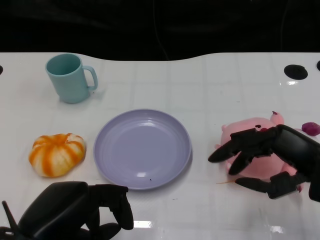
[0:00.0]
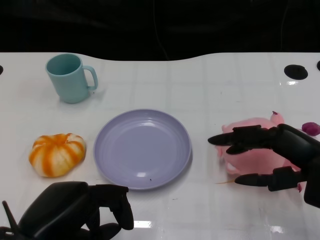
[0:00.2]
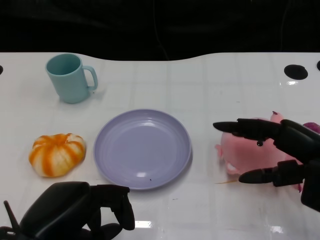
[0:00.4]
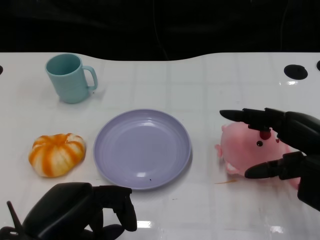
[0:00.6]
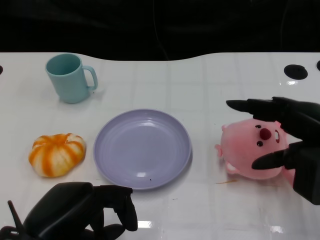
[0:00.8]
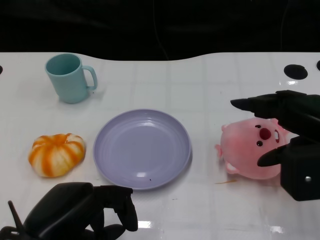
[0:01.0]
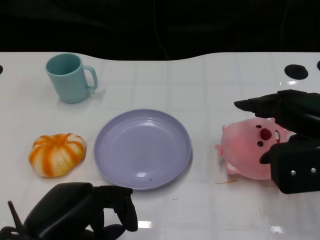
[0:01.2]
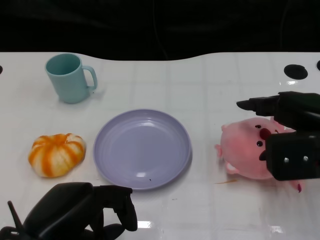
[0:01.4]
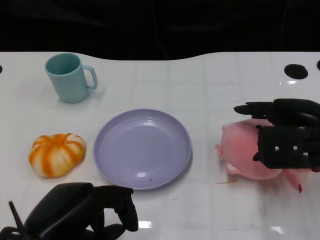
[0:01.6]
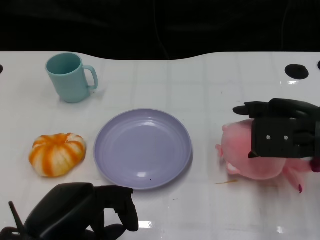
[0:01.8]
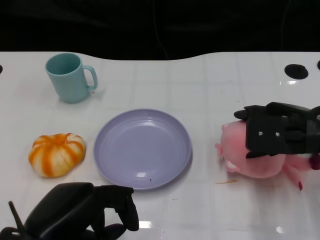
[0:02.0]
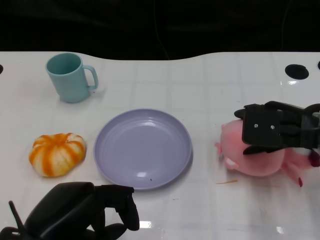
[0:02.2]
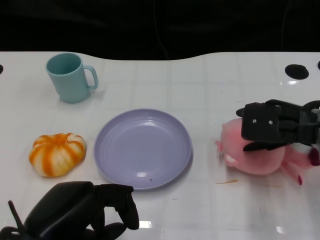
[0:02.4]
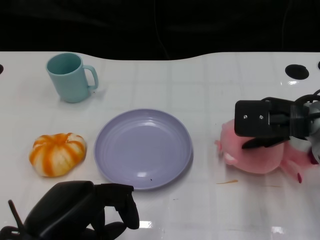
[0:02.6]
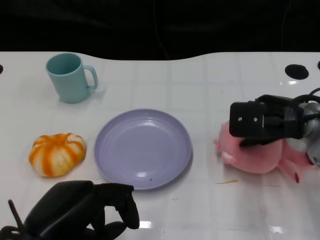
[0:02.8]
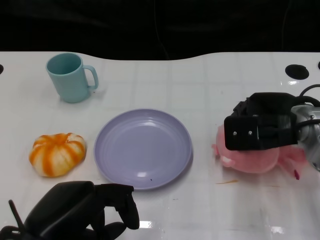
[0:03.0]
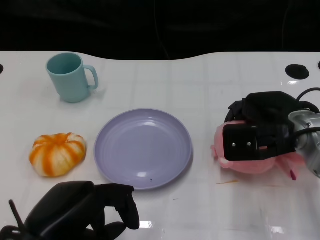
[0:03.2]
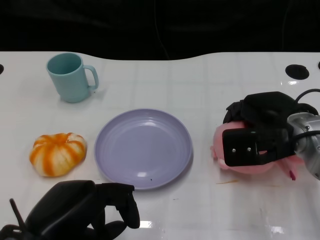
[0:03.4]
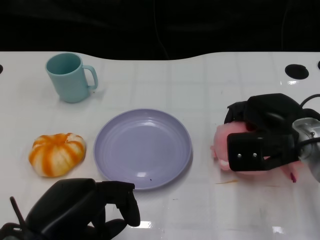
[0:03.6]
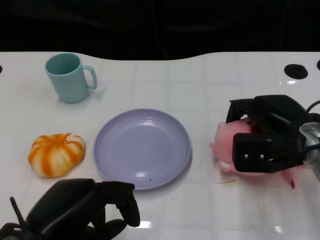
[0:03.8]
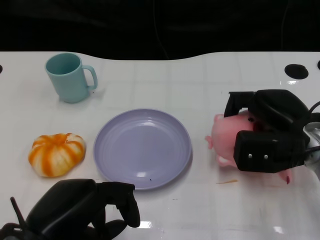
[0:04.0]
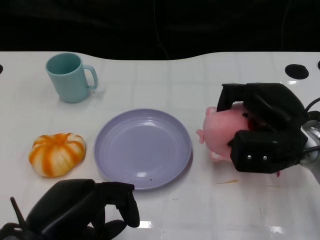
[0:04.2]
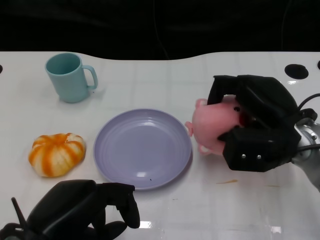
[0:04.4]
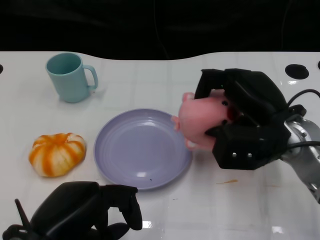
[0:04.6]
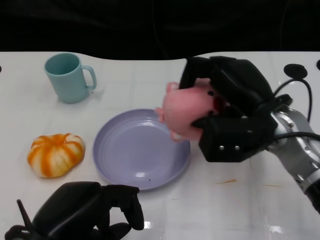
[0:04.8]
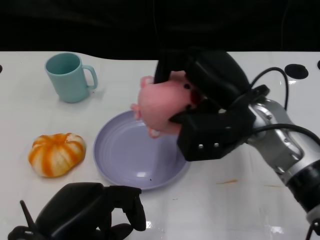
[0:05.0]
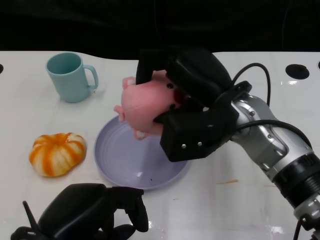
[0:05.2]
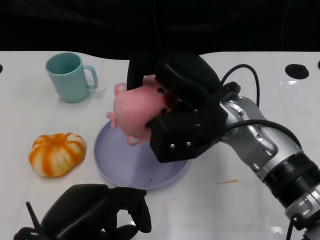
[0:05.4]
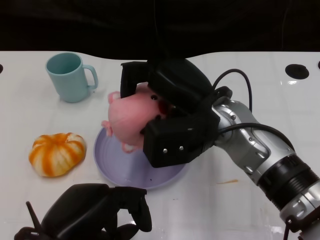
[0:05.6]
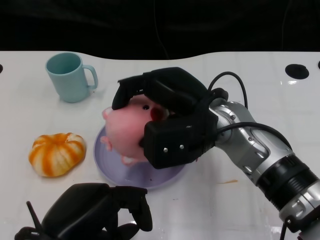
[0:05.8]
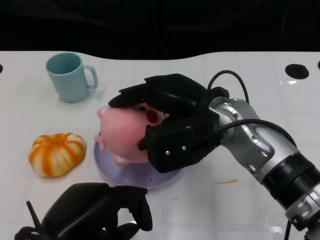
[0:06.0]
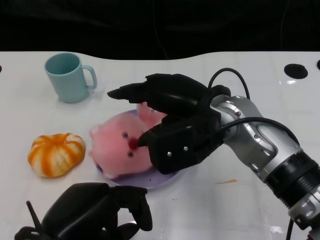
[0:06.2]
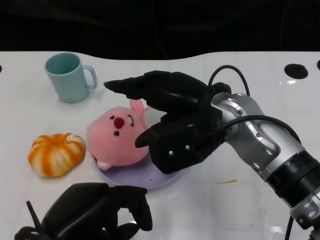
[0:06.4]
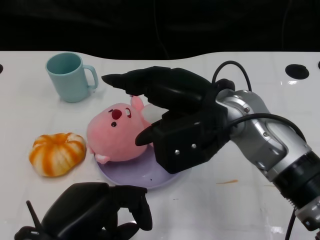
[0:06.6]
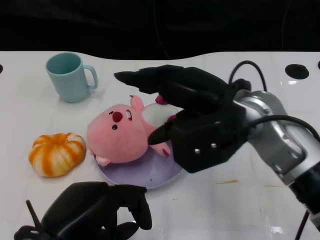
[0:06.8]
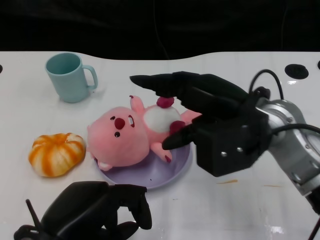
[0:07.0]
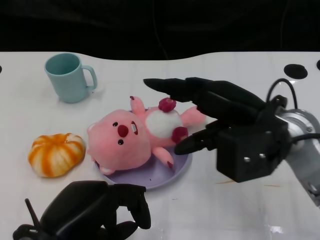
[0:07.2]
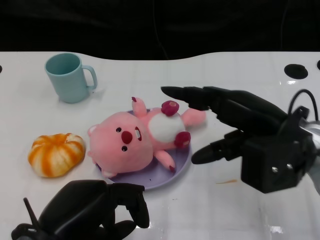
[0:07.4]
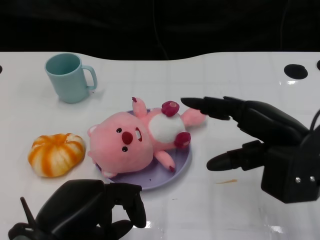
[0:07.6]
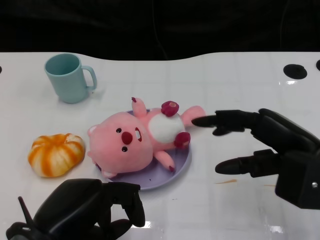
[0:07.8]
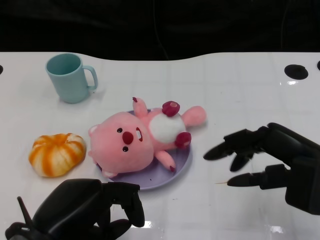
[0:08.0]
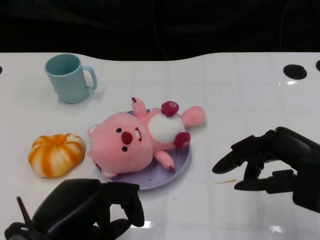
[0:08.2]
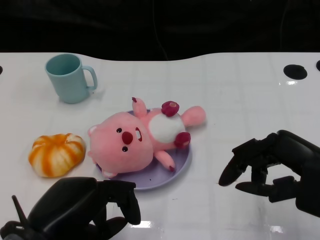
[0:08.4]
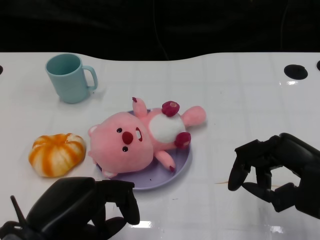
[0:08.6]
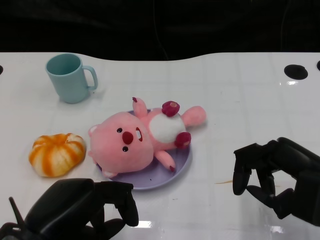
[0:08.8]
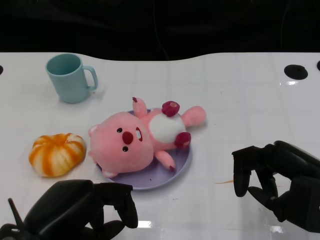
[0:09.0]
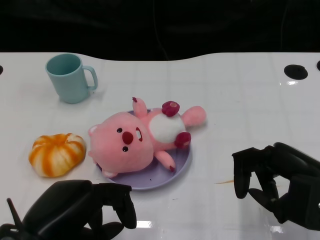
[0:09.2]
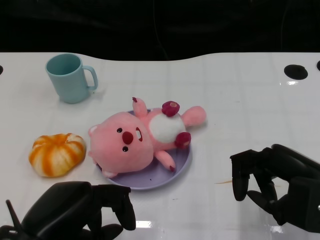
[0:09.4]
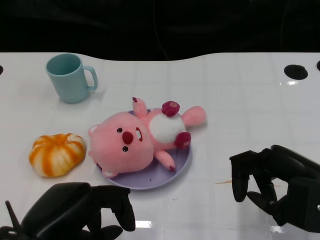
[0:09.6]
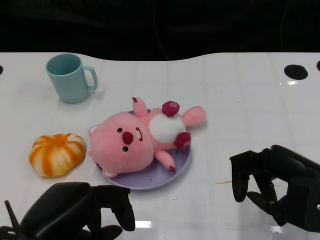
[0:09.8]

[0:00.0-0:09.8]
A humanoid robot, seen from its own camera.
Task of the whole recording: Pick up the doll on the other side of the plate and place it into the plate.
Step, 0:00.0 to 0:04.6: Grasp the pink doll with the right gripper.
Step, 0:04.8 to 0:07.0: Place the pink doll into the plate with the right gripper.
0:00.0 to 0:01.4: The right hand ends up about 5 cm from where it was.
0:01.4 to 0:02.8: The right hand is displaced forward by some 5 cm.
0:04.2 to 0:05.6: The right hand heads to the left, covering about 15 cm.
0:05.6 to 0:07.0: The right hand heads to the right, covering about 5 cm.
0:07.0 to 0:08.4: The right hand moves to the right and backward, about 15 cm.
0:08.4 to 0:09.8: The hands move only a little.

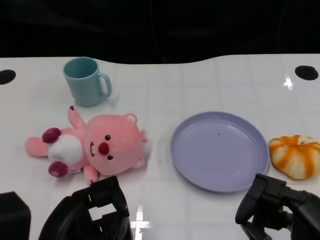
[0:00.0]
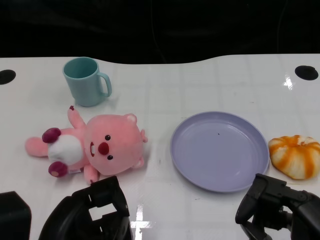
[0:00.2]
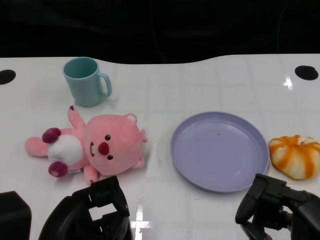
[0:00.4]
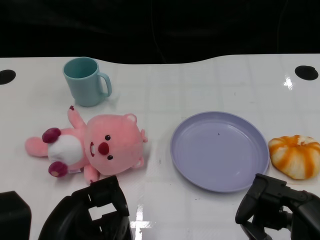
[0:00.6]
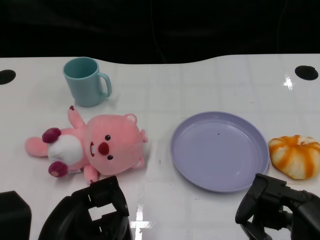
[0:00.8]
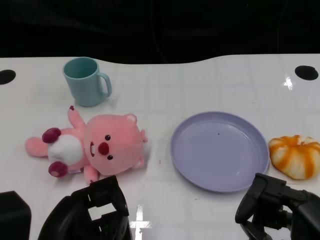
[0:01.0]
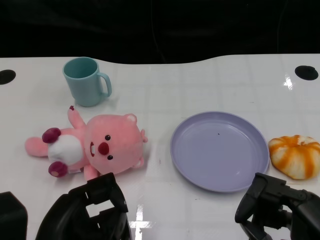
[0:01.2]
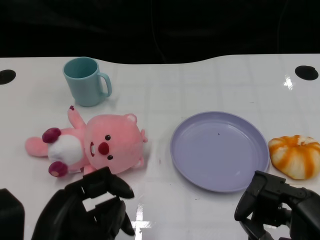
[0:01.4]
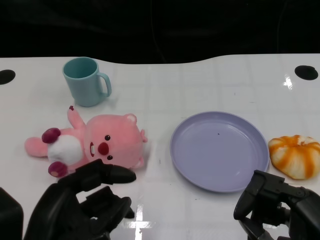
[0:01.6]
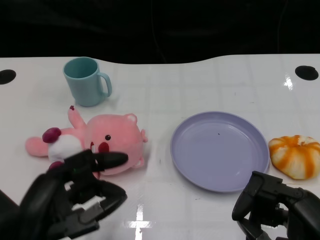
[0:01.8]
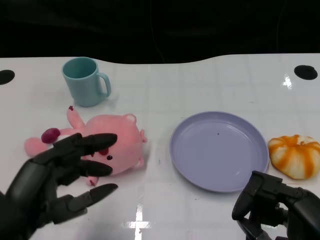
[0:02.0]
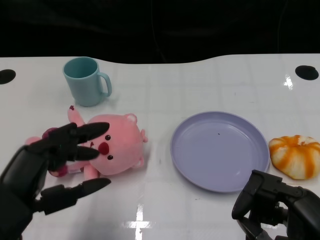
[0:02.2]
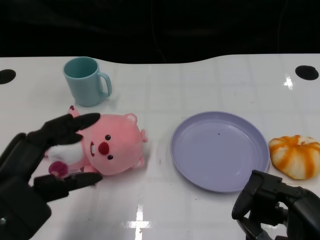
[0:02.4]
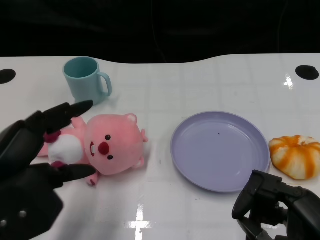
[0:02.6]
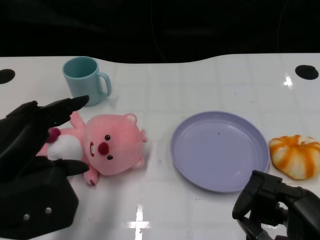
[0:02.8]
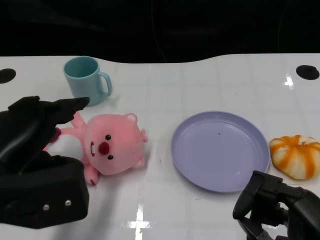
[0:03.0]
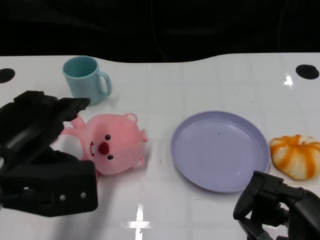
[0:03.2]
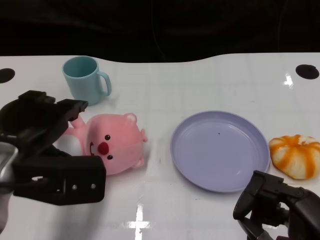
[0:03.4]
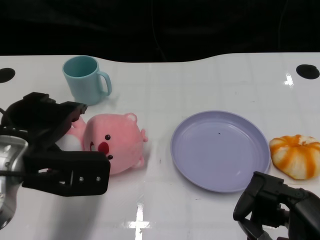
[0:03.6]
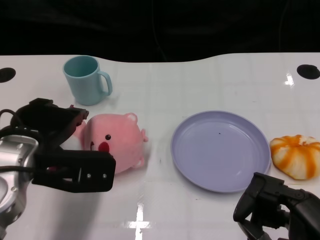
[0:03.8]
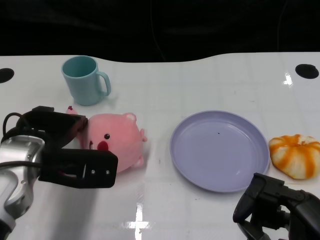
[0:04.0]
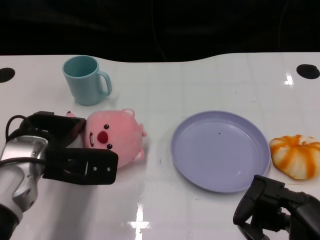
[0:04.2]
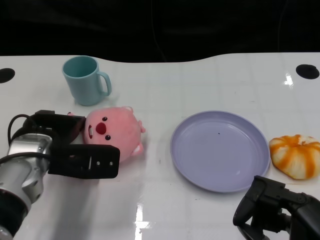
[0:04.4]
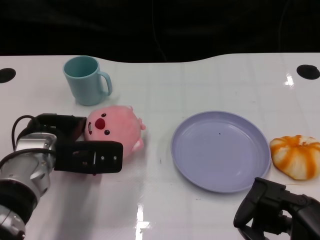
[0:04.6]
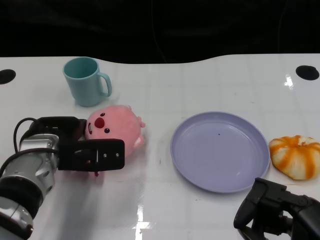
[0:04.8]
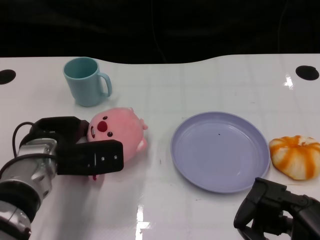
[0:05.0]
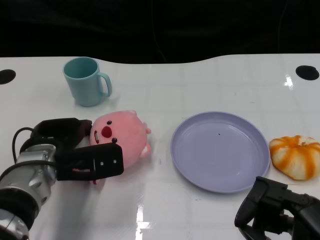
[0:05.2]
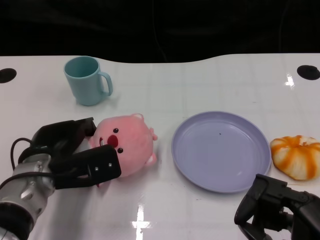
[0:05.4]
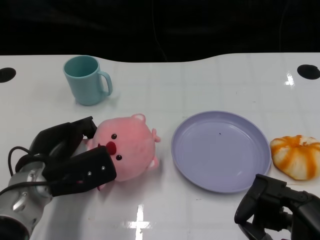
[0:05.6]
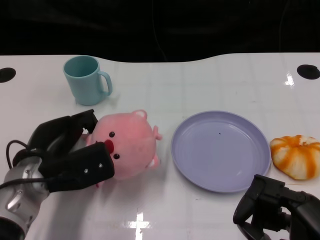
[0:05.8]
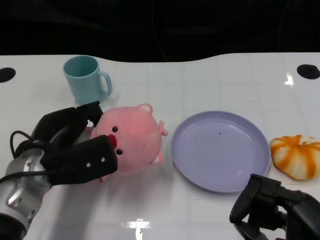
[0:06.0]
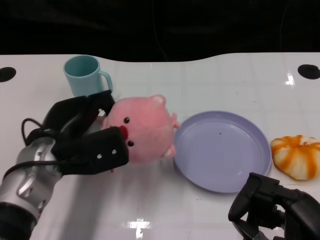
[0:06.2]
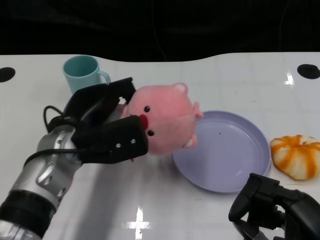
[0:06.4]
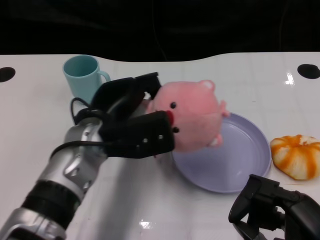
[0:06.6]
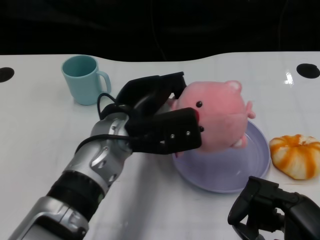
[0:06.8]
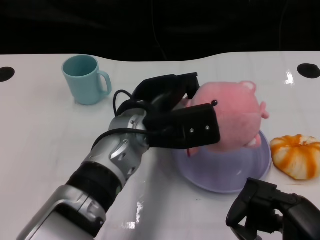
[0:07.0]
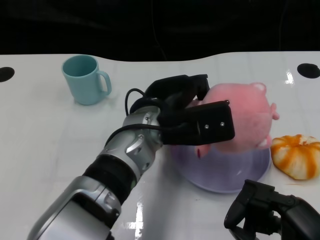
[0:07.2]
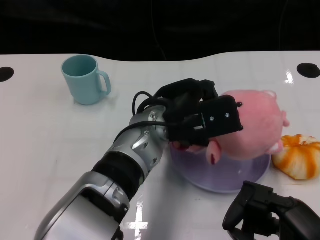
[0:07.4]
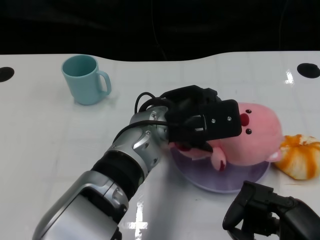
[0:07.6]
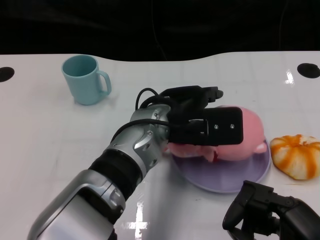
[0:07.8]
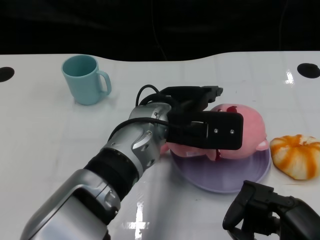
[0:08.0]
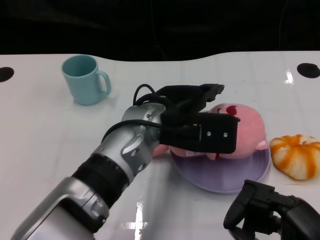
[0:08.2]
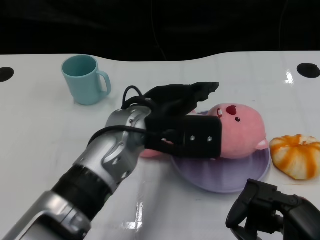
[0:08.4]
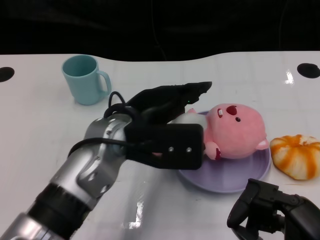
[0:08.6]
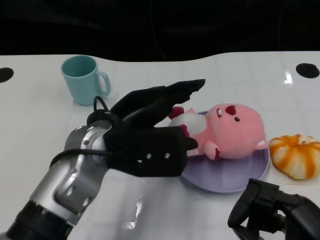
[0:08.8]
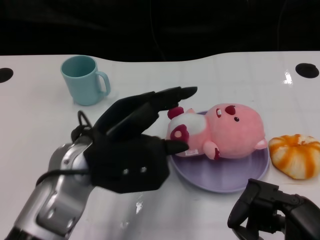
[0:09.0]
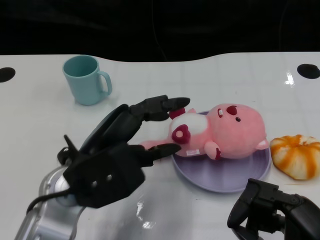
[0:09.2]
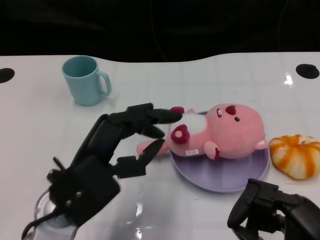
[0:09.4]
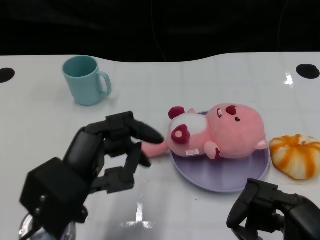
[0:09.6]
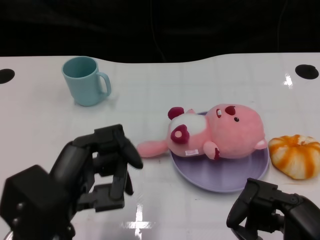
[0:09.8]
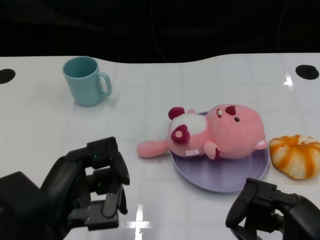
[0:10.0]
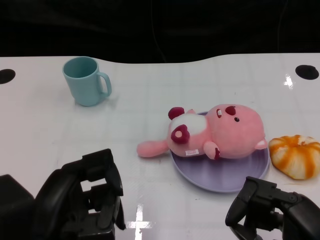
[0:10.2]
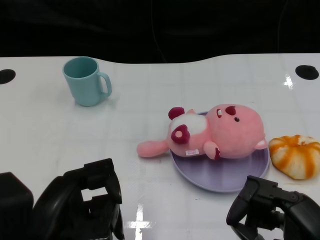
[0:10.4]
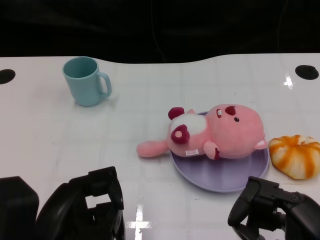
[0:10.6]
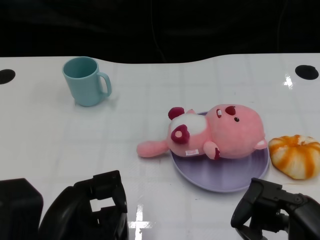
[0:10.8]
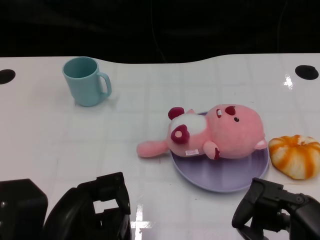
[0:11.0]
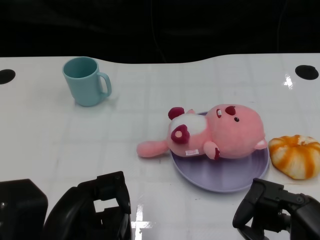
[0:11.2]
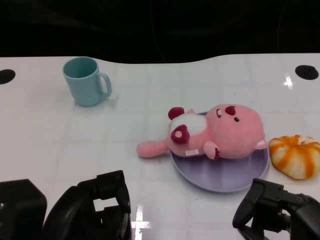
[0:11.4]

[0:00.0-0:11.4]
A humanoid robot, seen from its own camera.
Task of the whole recording: Pick up the doll on one side of the plate and place it into the plate.
Step, 0:01.2 to 0:05.6: Grasp the pink doll with the left gripper.
Step, 0:05.8 to 0:08.0: Place the pink doll into the plate with the left gripper.
0:01.4 to 0:02.8: The left hand is displaced upward by some 5 cm.
0:02.8 to 0:04.2: The left hand is displaced forward and downward by roughly 10 cm.
0:04.2 to 0:05.6: The left hand travels downward by roughly 5 cm.
0:05.6 to 0:07.2: The left hand travels to the right and upward by approximately 20 cm.
0:07.2 to 0:08.6: The left hand moves approximately 5 cm.
0:08.6 to 0:10.0: The left hand heads backward and to the left, covering some 15 cm.

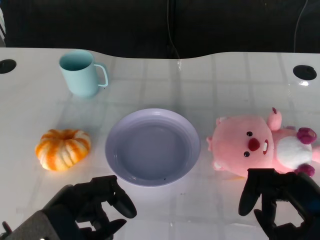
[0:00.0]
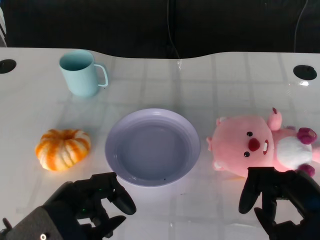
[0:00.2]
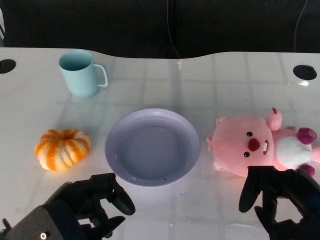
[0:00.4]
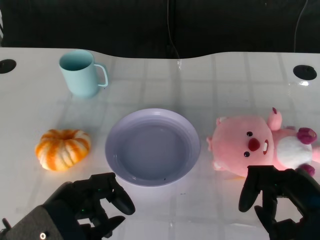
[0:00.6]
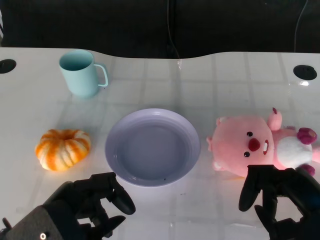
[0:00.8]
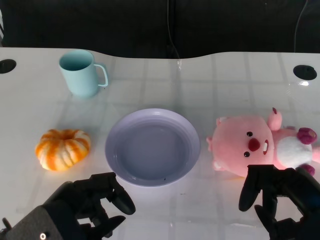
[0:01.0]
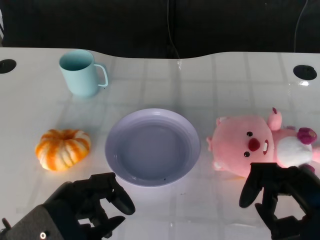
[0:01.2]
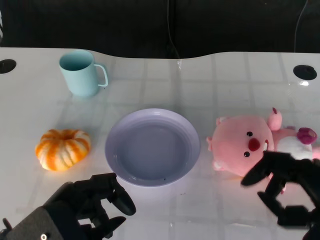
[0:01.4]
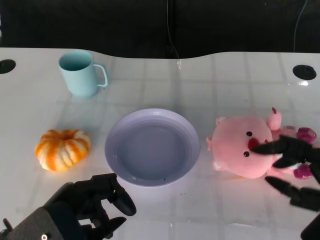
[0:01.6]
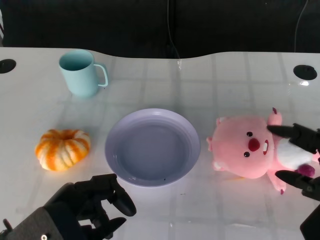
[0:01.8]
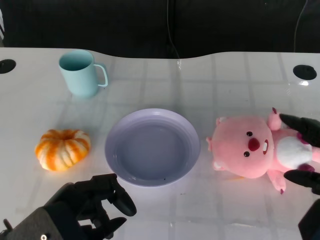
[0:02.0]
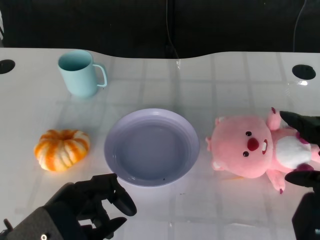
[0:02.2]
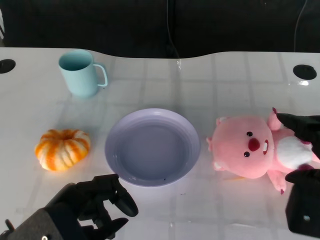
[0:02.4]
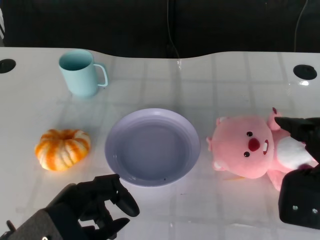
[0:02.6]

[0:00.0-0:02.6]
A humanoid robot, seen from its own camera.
Task of the whole recording: Pick up the doll on the other side of the plate and place it into the plate.
0:01.2 to 0:02.6: The right hand changes place by about 5 cm.
